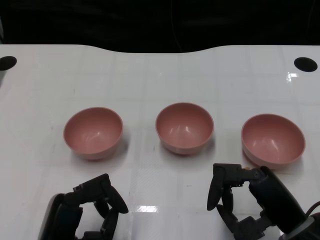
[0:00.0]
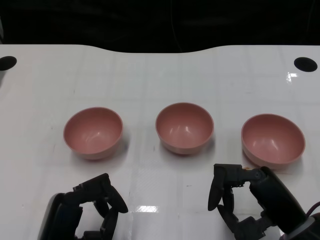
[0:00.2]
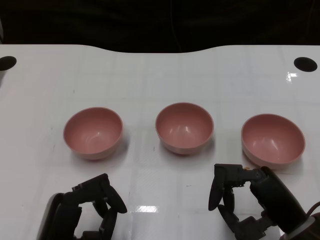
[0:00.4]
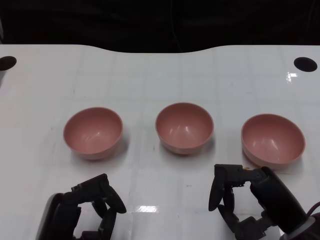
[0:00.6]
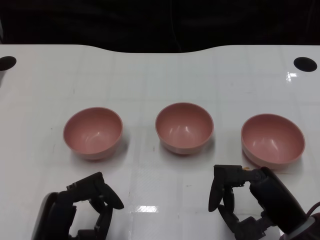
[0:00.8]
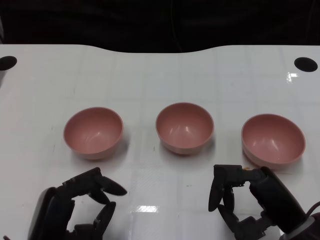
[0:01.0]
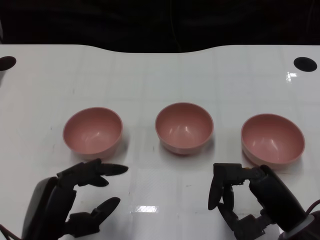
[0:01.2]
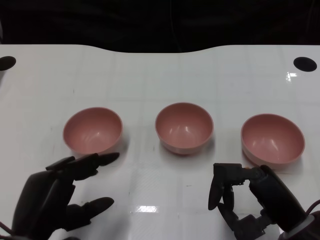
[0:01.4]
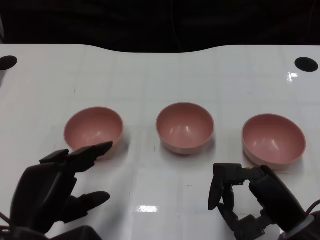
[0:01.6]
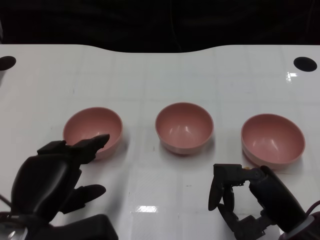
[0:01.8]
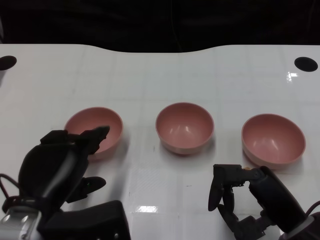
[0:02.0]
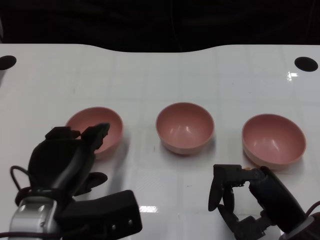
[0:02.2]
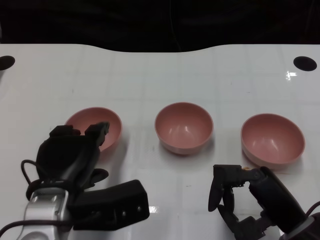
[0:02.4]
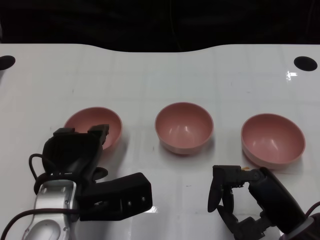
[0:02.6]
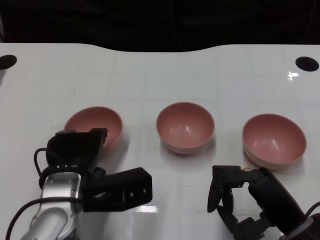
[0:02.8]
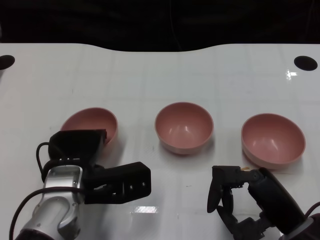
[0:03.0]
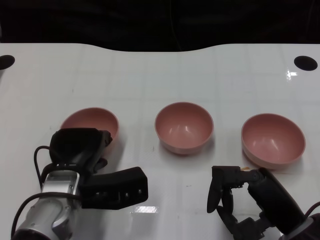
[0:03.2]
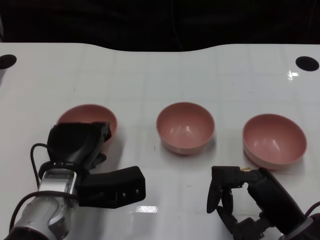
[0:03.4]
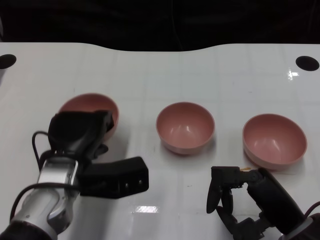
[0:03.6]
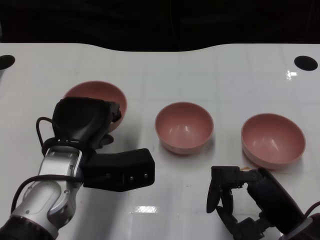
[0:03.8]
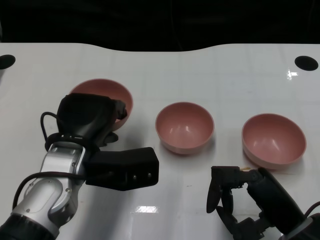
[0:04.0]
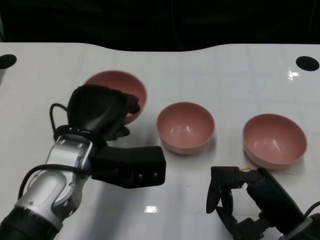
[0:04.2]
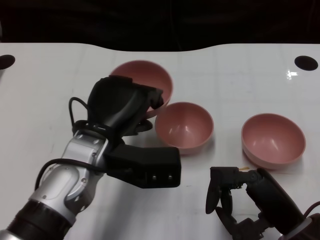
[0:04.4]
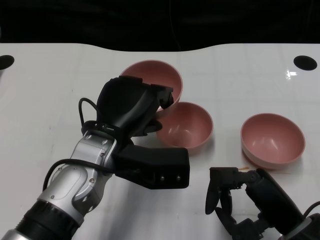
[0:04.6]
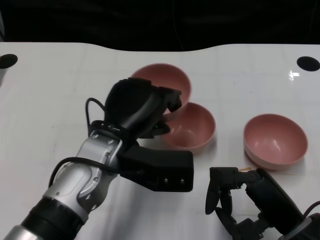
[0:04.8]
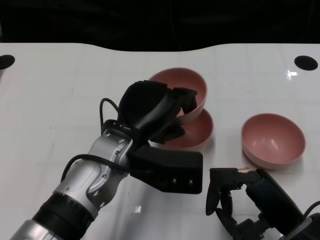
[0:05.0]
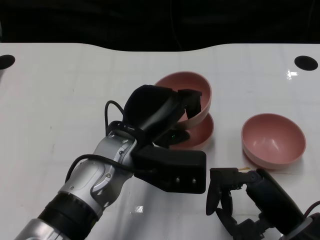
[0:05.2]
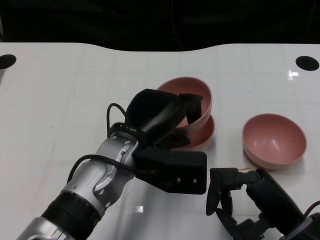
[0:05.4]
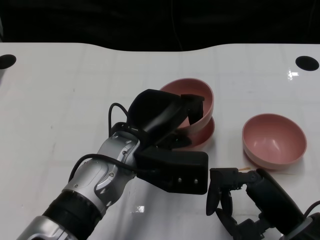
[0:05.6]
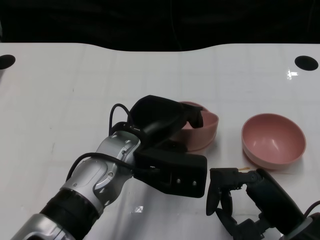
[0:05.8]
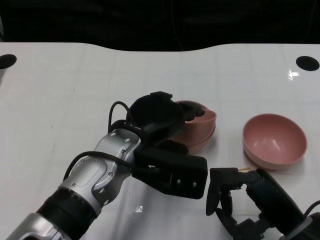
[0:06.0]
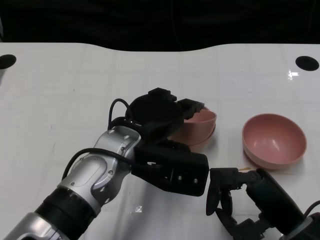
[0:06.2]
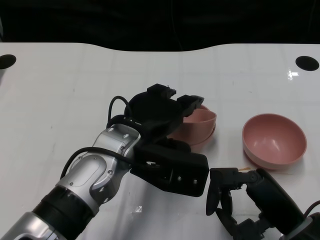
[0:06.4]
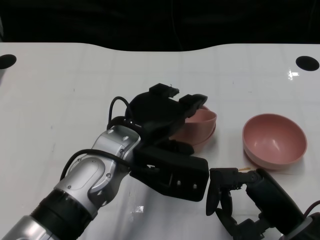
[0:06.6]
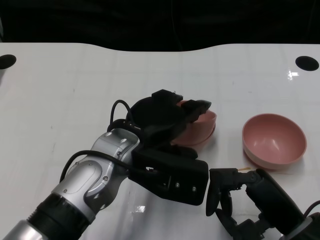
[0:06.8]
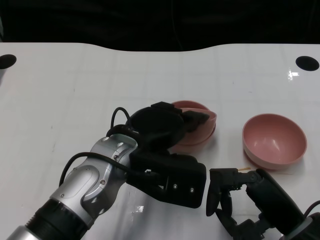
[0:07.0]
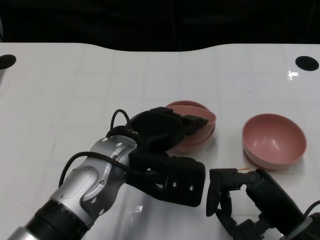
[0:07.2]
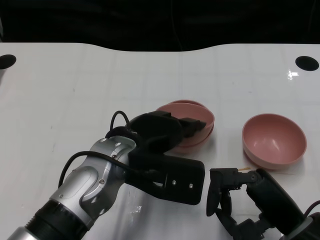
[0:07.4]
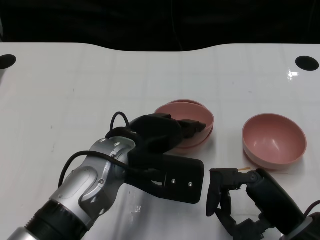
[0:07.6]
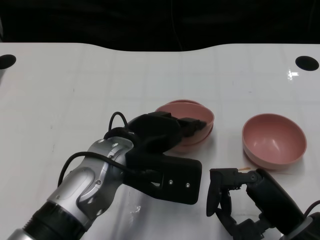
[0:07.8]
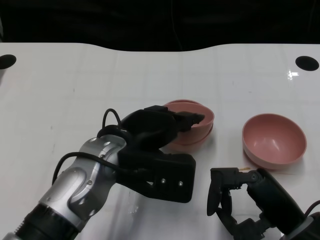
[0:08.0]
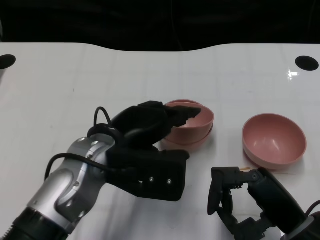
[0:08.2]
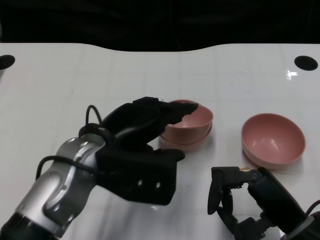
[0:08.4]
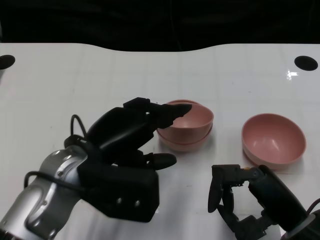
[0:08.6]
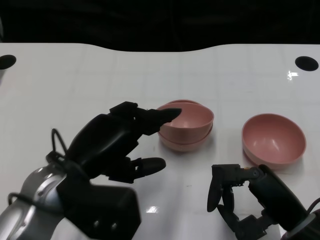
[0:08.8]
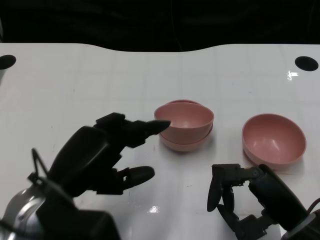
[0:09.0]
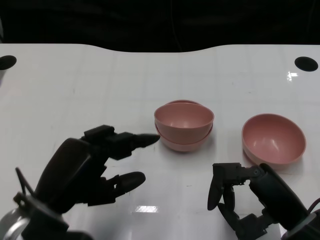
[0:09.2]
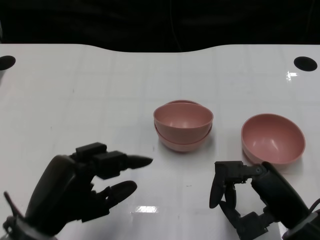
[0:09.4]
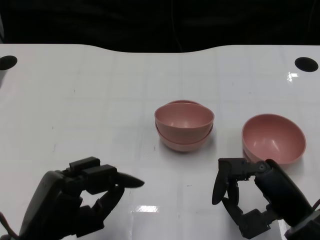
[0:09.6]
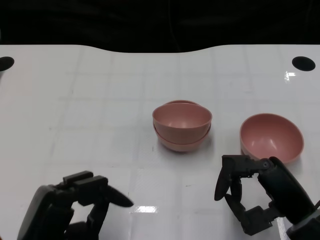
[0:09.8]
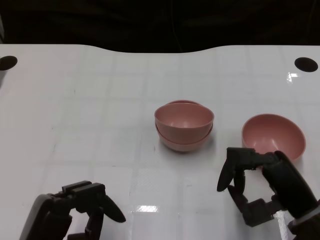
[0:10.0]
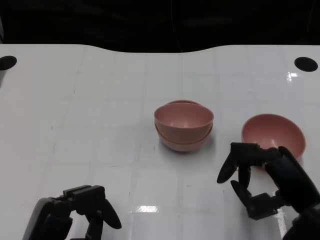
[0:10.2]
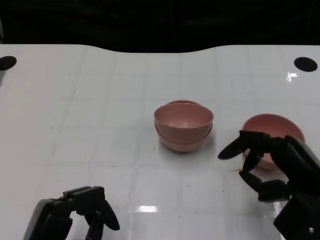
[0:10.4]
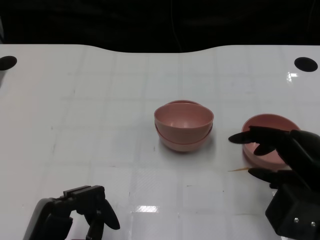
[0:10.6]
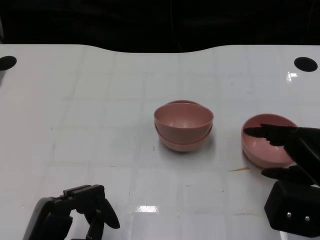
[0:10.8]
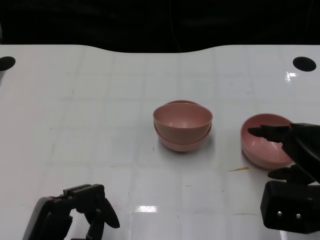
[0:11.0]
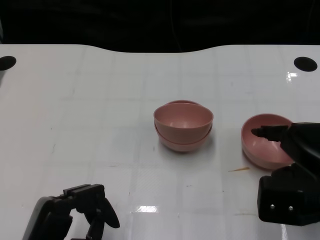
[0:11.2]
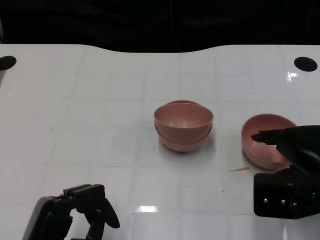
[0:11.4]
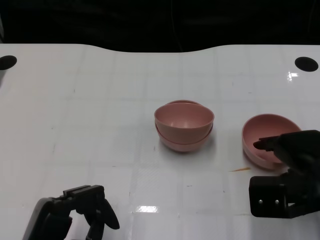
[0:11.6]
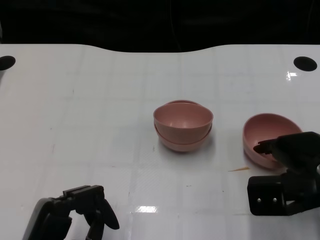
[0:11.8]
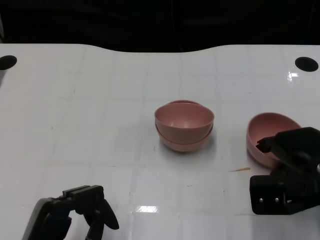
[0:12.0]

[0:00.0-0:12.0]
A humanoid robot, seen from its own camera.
Task of the whole recording: Pick up the bowl on one side of the table and place it on top of the middle bowl, then pick up the bowl on the other side of the table and place it on top of the middle bowls.
Step, 0:01.0 to 0:03.2: Grasp the bowl on the left with the left gripper.
Step, 0:03.4 to 0:08.4: Place the bowl on the left onto the bowl in the middle with left gripper.
0:01.6 to 0:03.0: The left hand shifts about 10 cm forward and to the right.
0:03.0 to 0:04.4: The left hand moves upward, some 5 cm.
0:06.0 to 0:07.6: The hands make only small movements.
0:07.6 to 0:09.0: The left hand goes approximately 10 cm to the left and backward.
0:09.0 to 0:10.4: The left hand shifts approximately 10 cm backward and downward.
0:10.4 to 0:12.0: The right hand is displaced forward by some 5 cm.

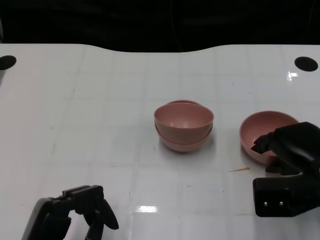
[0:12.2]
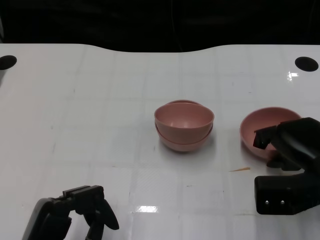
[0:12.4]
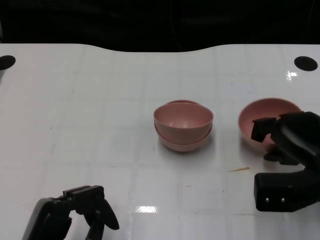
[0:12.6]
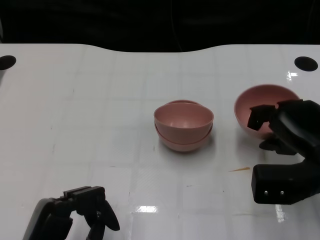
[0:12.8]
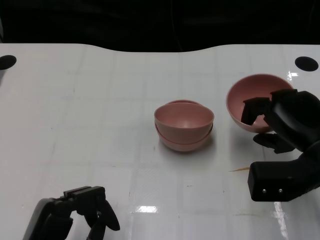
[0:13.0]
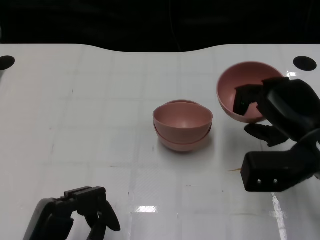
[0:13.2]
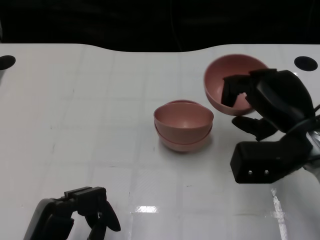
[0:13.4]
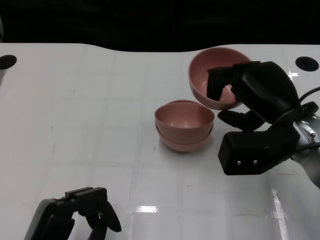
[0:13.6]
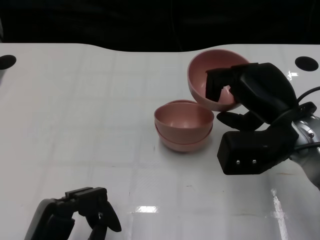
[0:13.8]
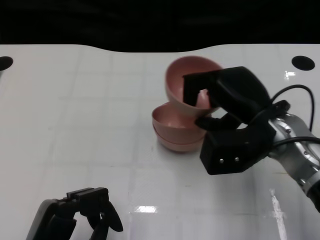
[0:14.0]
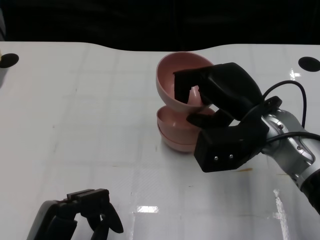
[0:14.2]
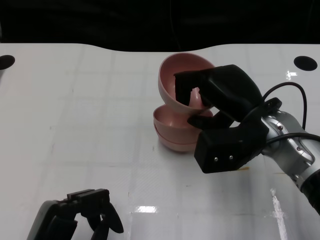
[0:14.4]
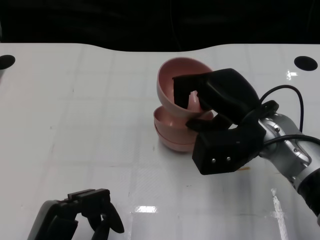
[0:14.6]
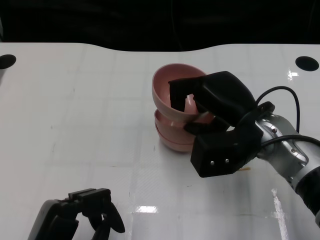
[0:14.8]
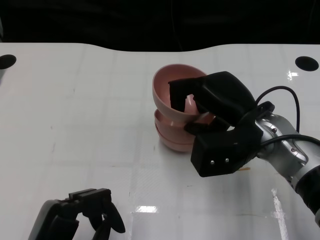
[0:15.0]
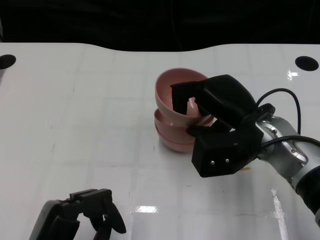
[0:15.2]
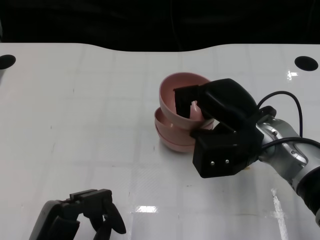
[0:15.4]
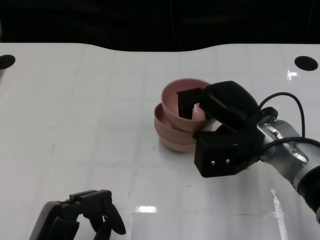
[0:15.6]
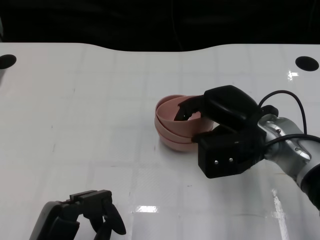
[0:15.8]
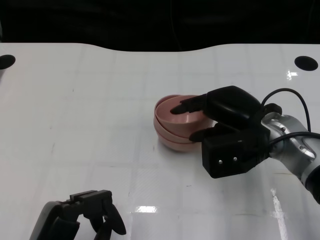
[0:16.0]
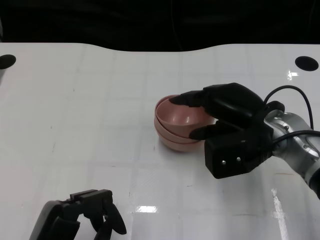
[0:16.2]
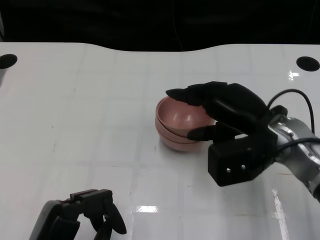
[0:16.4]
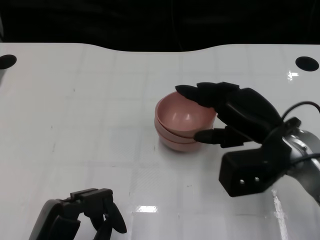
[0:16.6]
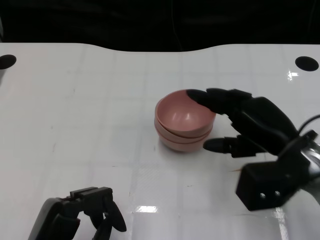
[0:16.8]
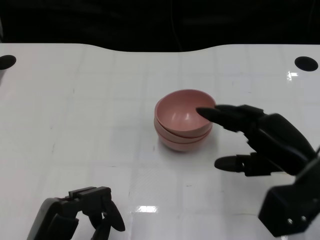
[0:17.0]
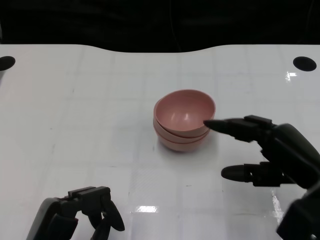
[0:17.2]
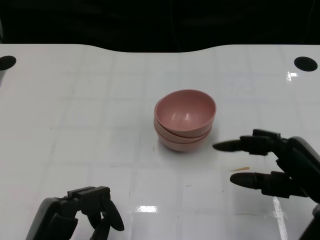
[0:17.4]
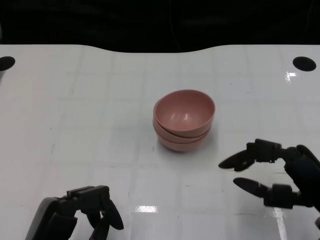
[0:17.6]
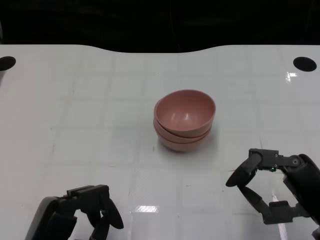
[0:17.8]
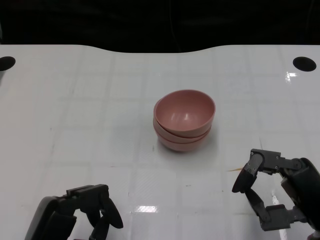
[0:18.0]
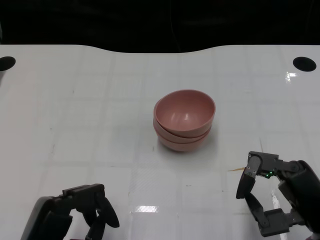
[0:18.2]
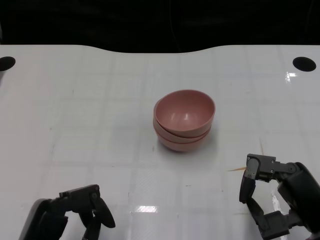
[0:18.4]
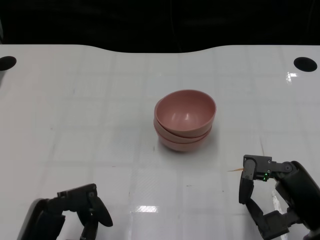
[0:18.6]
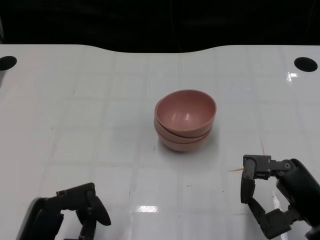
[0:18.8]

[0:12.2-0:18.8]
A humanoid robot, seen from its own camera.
Task of the whole recording: Pick up the bowl on one side of the table and place it on top of the middle bowl, then pick up the bowl on the other side of the table and place it on top of the middle bowls.
Step, 0:12.6 to 0:16.8: Place the bowl on the right onto the bowl in the middle with right gripper.
0:12.2 to 0:13.8: The right hand heads upward and to the left, covering some 10 cm.
0:15.4 to 0:17.2: The right hand shifts some 10 cm to the right and backward.
0:17.2 to 0:18.8: The right hand ends up approximately 5 cm from where it was.

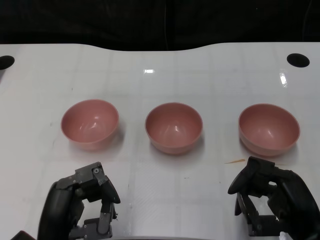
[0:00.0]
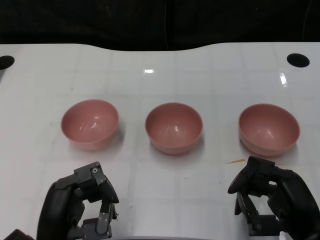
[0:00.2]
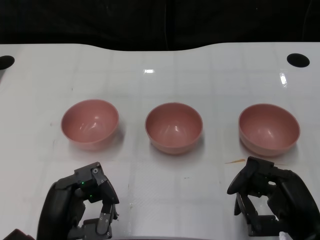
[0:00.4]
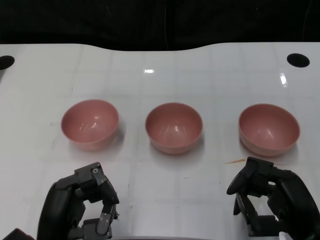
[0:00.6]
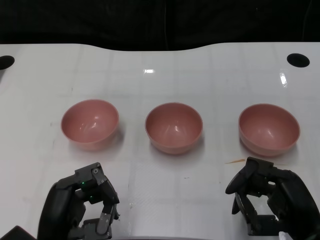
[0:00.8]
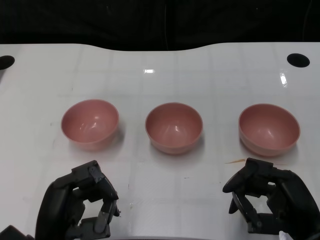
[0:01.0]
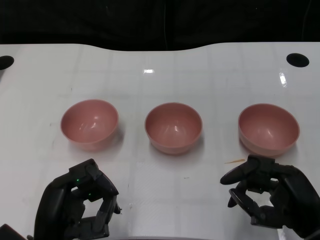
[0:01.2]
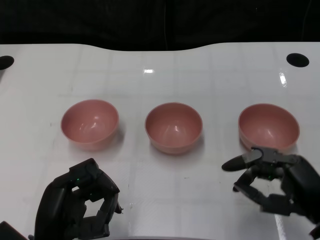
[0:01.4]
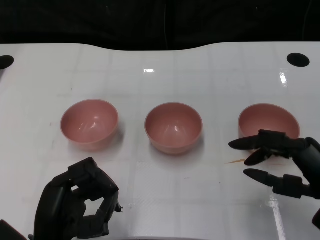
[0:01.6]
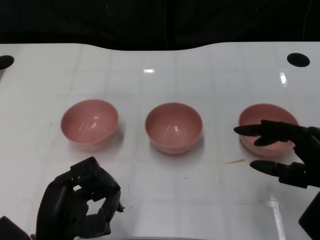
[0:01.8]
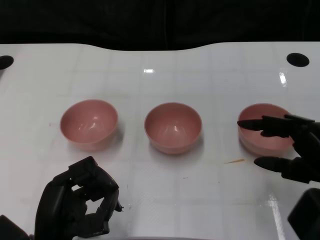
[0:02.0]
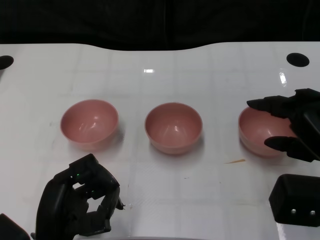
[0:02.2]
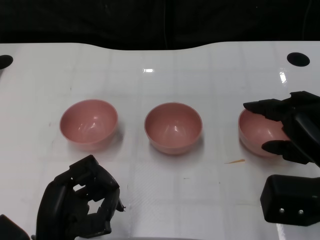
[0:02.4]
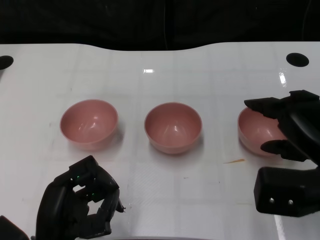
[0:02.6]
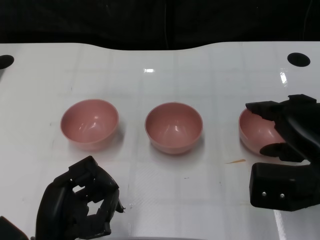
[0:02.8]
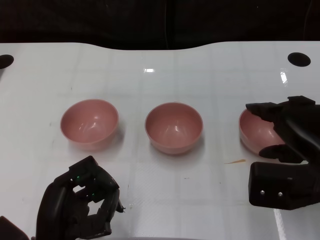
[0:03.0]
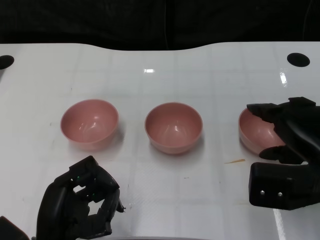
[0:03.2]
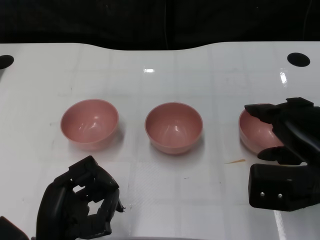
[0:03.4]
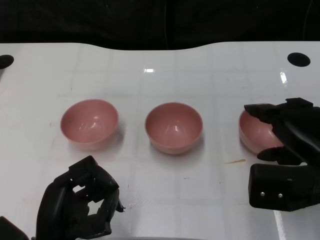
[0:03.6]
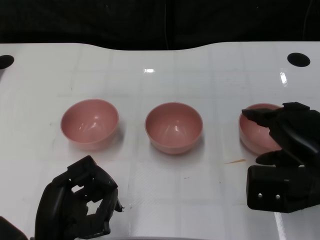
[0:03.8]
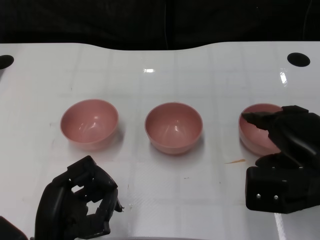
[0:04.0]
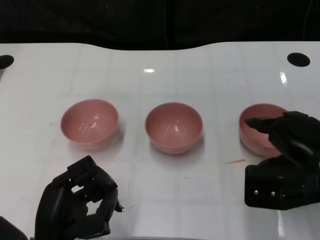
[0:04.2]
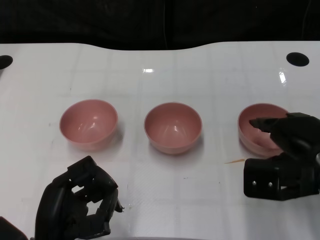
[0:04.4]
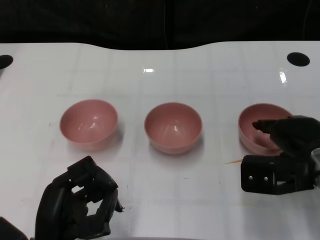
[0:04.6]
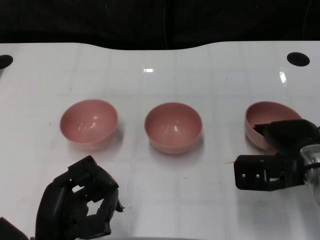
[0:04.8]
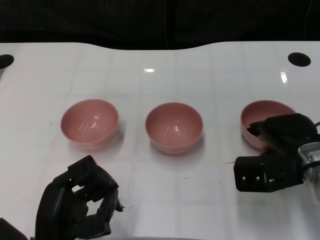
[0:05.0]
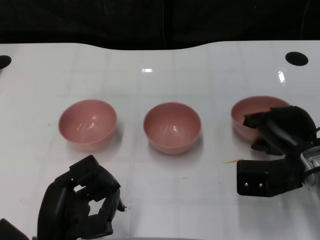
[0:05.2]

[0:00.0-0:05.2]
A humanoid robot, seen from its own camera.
Task of the whole recording: Pick up the bowl on one side of the table and place it on top of the middle bowl, then pick up the bowl on the other side of the table and place it on top of the middle bowls.
0:01.8 to 0:03.4: The right hand ends up some 5 cm from where it was.
0:03.4 to 0:05.2: The right hand is displaced downward and forward by approximately 10 cm.
